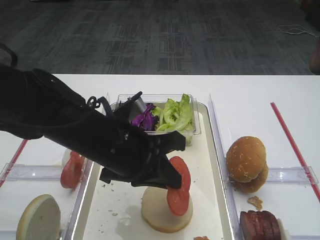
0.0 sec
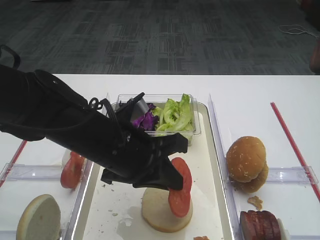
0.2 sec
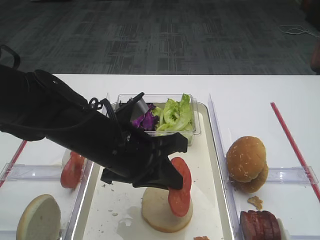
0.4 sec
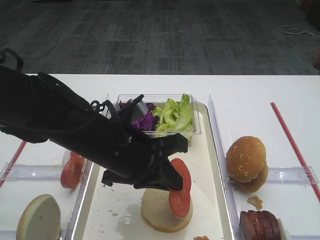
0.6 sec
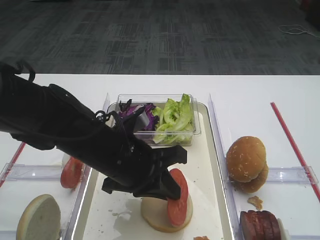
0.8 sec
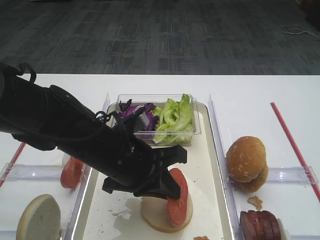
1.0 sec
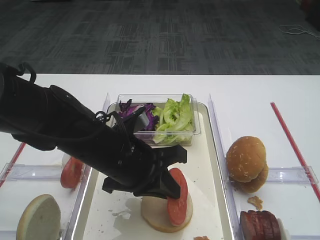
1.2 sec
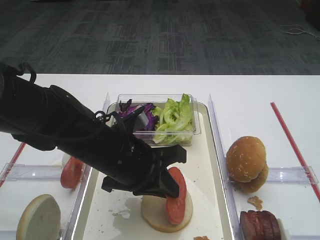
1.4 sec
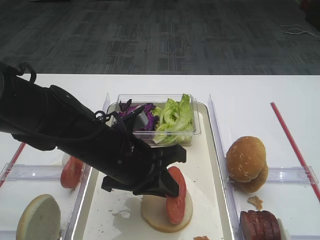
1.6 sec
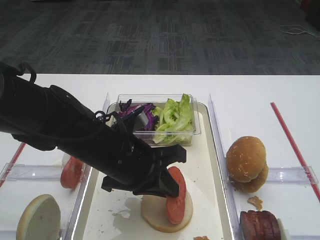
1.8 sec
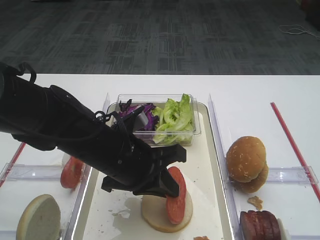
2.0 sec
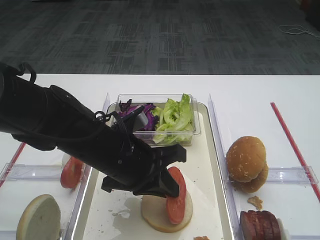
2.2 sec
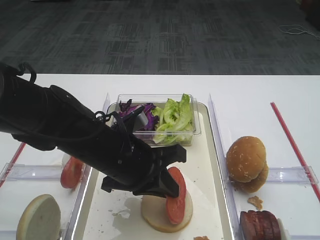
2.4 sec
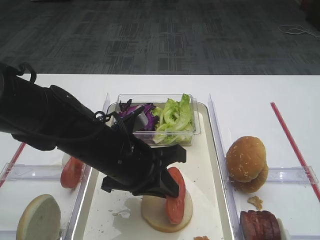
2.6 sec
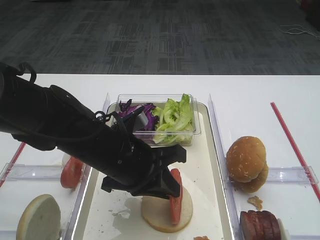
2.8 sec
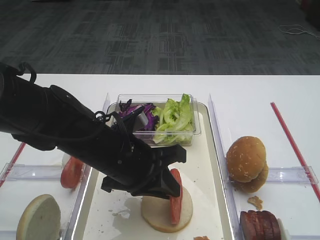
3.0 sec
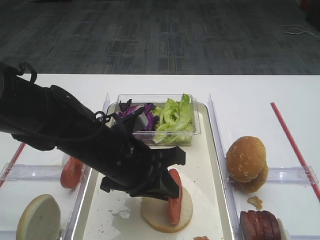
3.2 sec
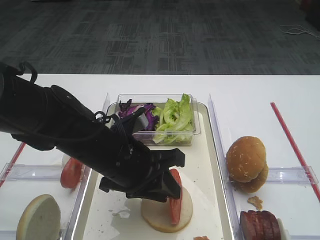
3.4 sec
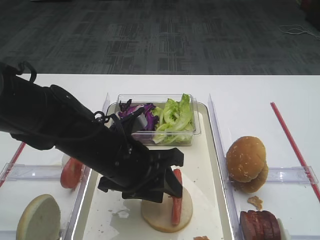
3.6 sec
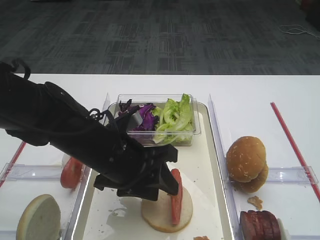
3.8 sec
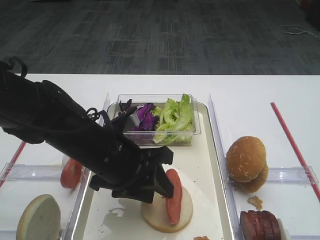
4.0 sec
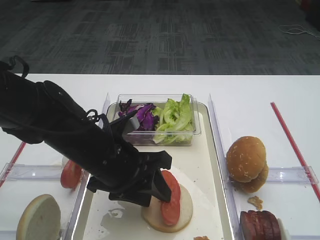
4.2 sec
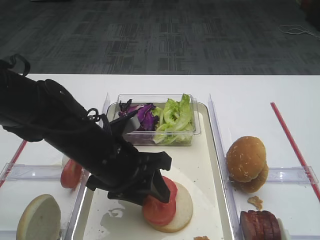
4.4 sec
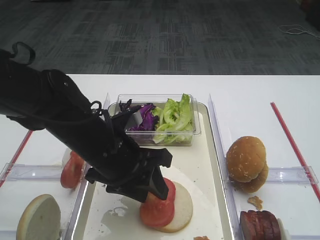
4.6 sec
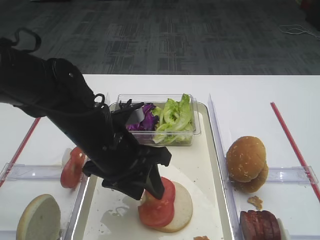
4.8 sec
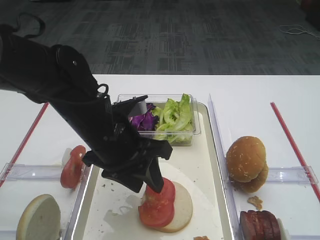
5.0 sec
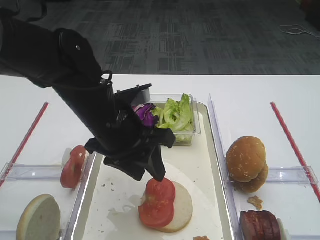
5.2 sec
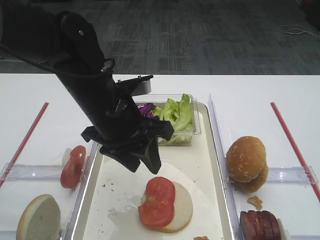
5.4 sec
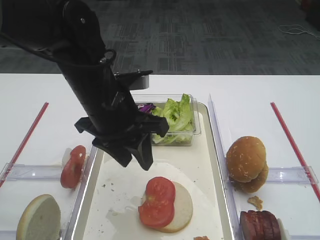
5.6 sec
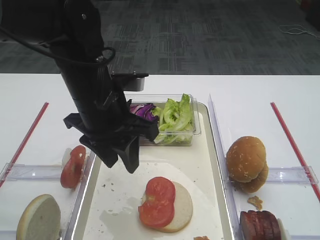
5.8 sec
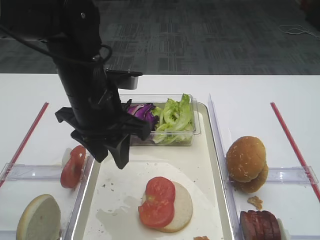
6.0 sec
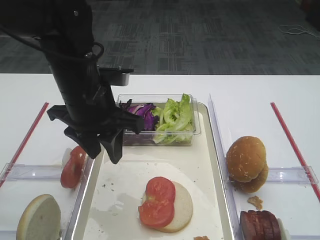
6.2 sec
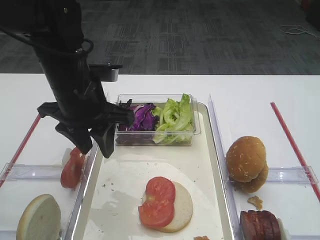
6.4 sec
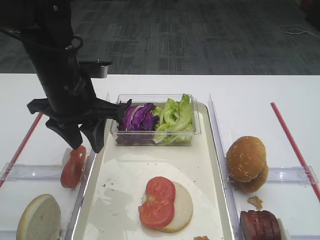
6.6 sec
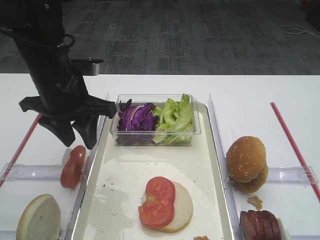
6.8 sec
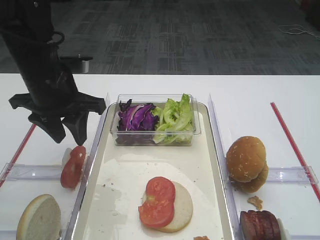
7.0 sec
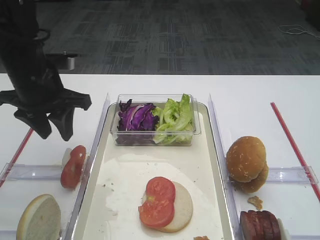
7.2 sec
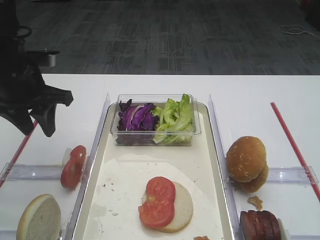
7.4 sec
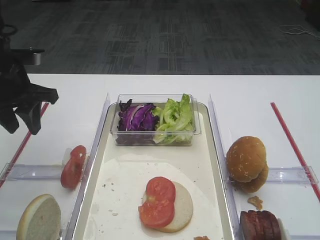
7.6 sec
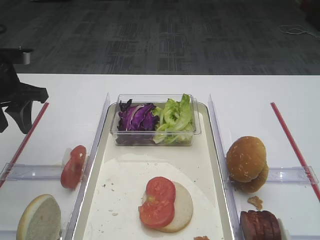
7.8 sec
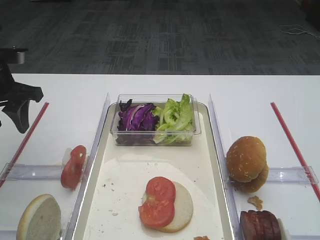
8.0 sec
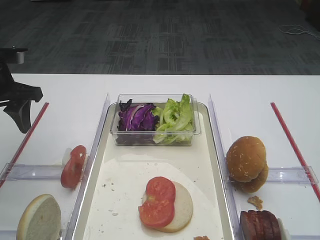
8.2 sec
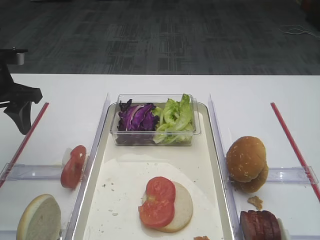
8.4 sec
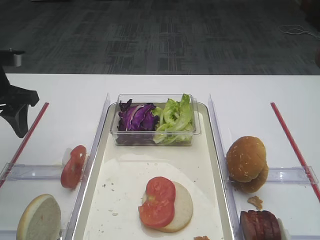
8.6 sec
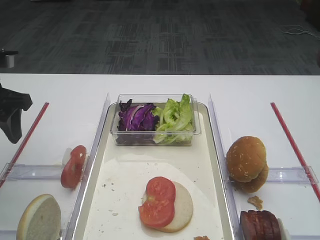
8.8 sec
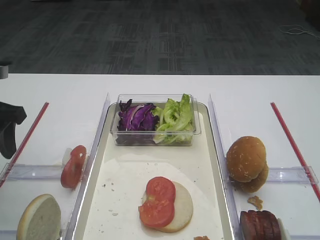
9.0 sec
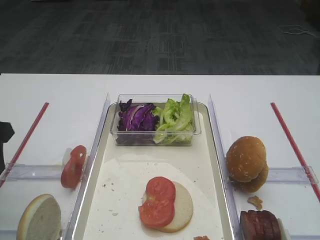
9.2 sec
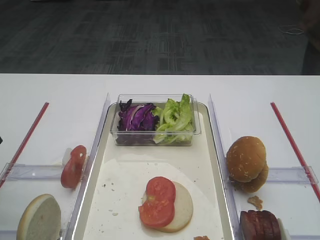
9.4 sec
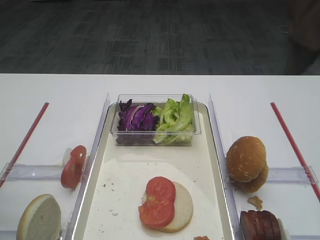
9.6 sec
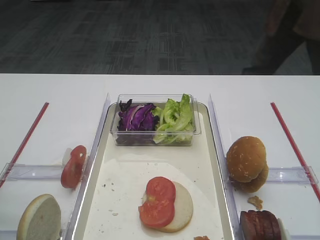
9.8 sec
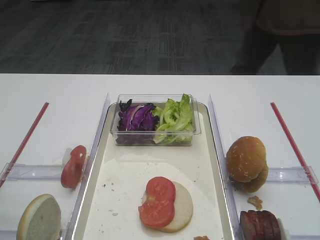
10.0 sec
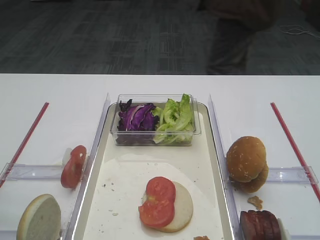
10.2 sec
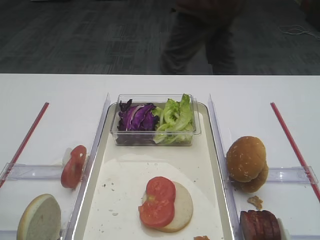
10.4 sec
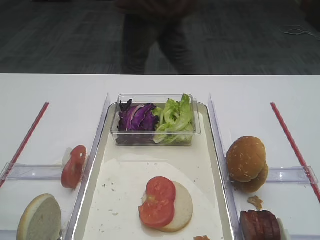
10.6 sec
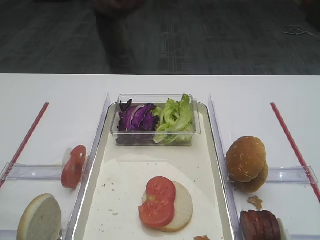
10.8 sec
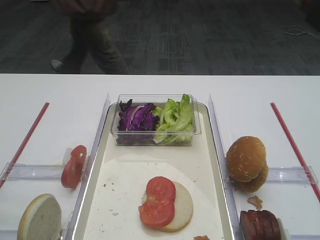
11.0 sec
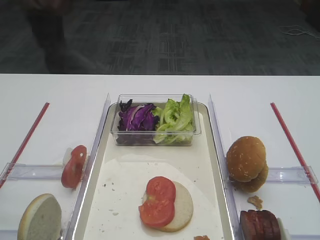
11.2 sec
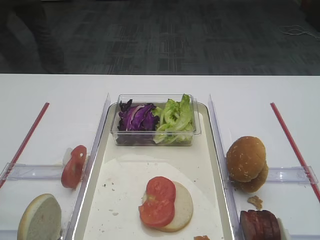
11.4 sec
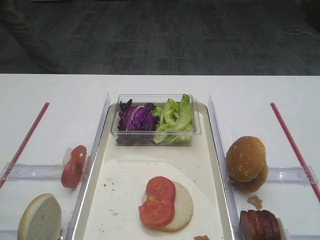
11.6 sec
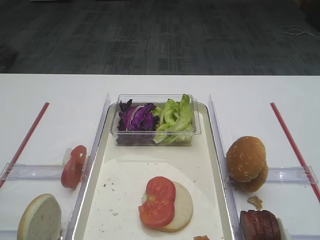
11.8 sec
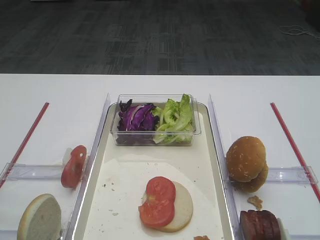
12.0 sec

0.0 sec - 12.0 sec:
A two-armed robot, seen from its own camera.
Step, 0.0 sec - 5.2 sec: Place the tomato slice on the bread slice with the left gripper.
0.0 sec - 1.6 sec: The grippers make only small movements.
1.6 sec - 3.0 sec: The two grippers keep their place.
3.0 sec - 4.4 sec: The left gripper opens up.
4.4 sec - 6.0 sec: The left gripper is displaced upward by approximately 10 cm.
6.0 sec - 7.6 sec: The left gripper heads to the left, covering some 15 cm.
7.6 sec - 9.0 sec: The left gripper moves backward, approximately 5 cm.
9.0 sec - 10.4 sec: The left gripper goes some 20 cm backward.
10.4 sec - 12.0 sec: The left gripper heads backward, covering about 5 cm.

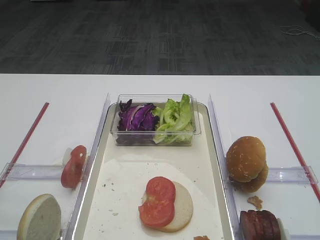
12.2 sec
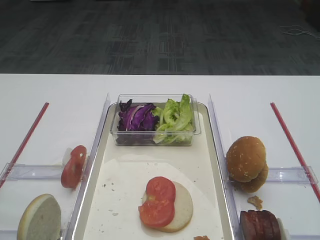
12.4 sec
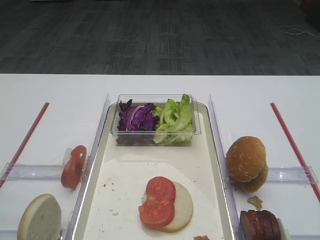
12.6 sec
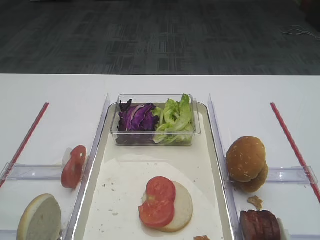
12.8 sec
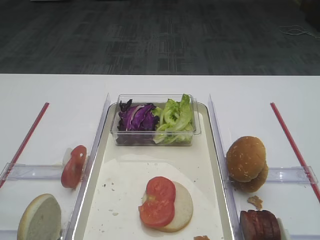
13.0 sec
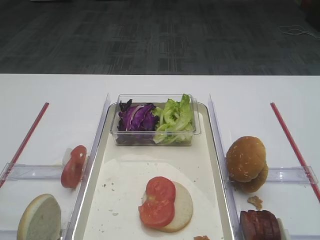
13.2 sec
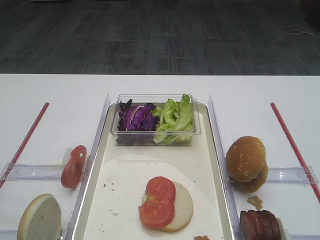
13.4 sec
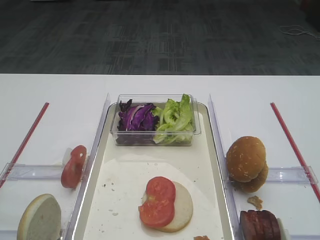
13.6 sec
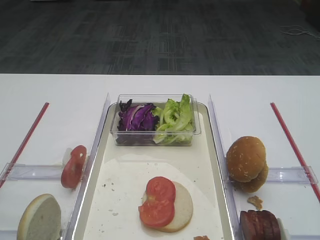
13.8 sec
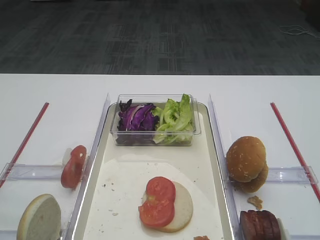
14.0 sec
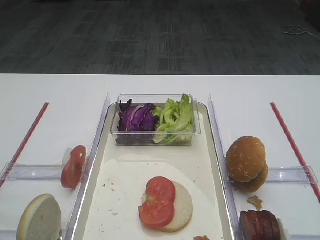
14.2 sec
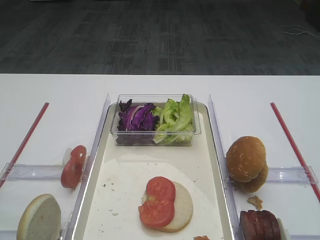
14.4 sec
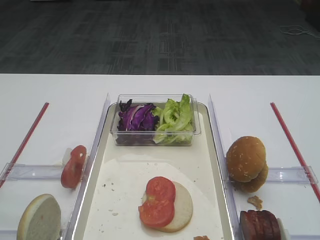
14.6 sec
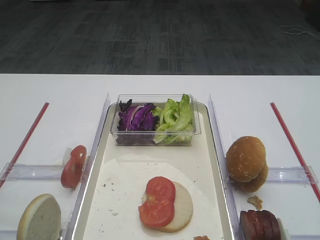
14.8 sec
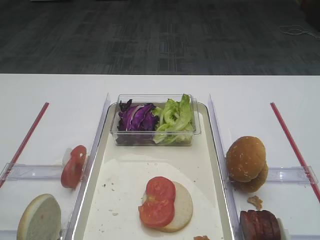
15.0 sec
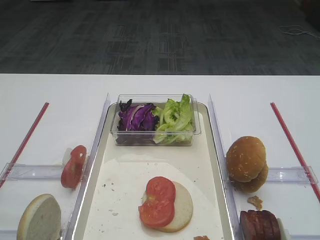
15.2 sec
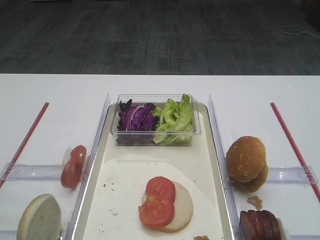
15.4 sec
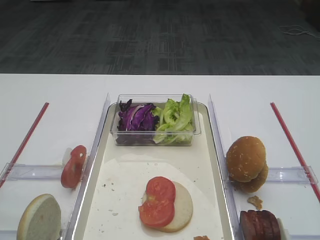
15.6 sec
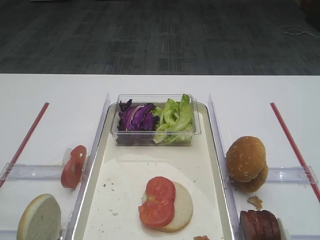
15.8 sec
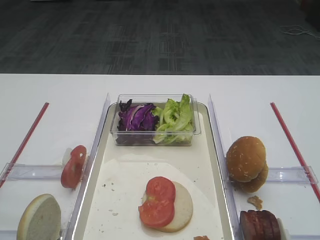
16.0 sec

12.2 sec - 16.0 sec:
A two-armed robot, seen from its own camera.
13.4 sec - 16.0 sec: Both grippers stay about where they are.
